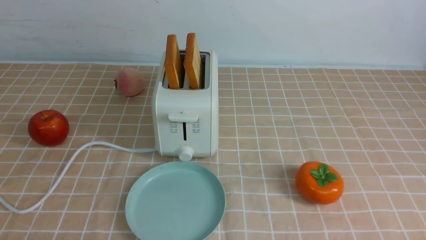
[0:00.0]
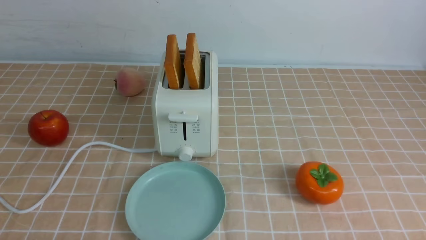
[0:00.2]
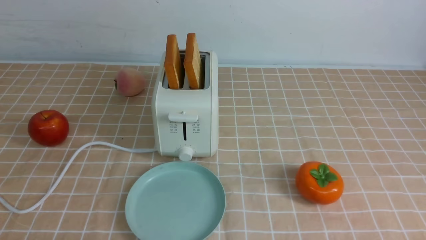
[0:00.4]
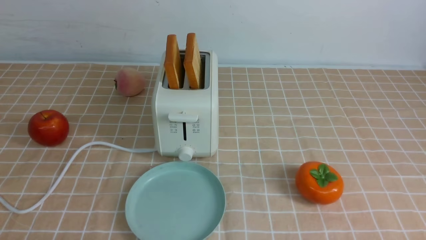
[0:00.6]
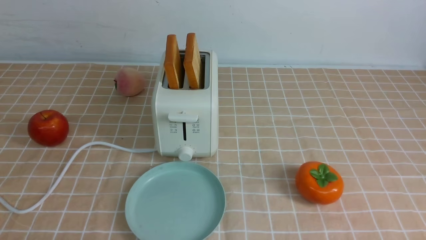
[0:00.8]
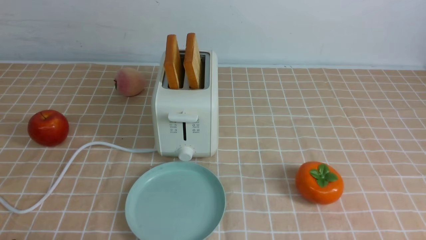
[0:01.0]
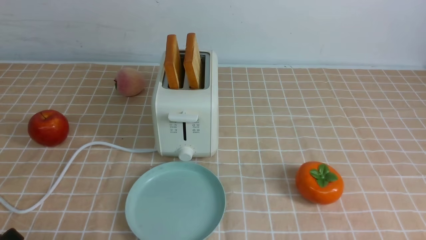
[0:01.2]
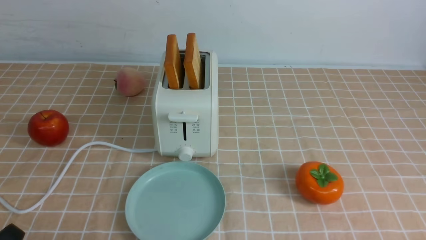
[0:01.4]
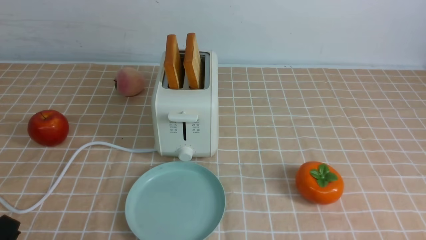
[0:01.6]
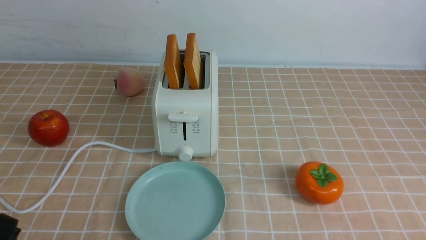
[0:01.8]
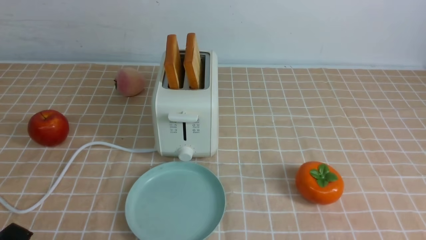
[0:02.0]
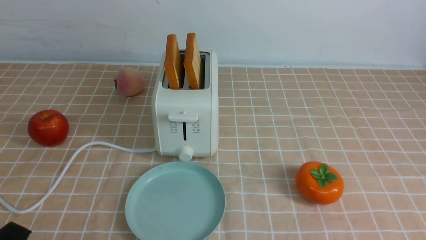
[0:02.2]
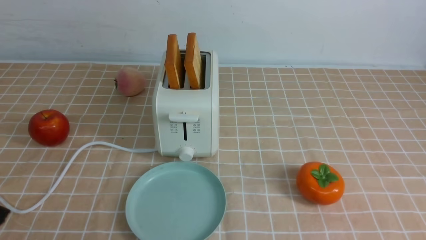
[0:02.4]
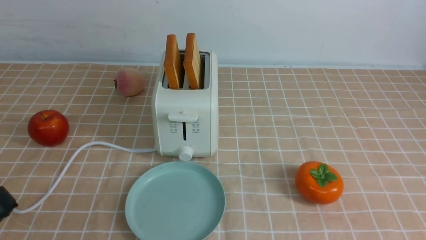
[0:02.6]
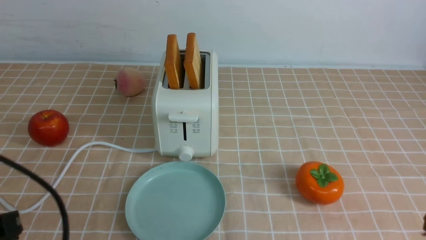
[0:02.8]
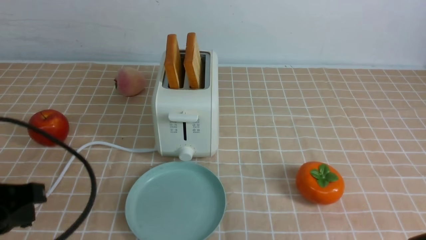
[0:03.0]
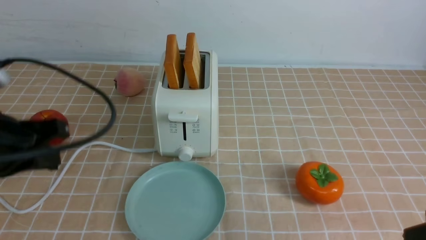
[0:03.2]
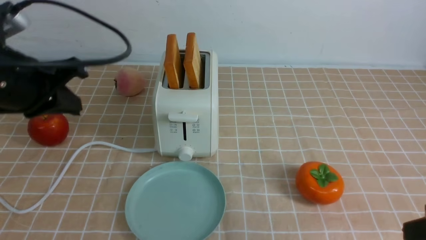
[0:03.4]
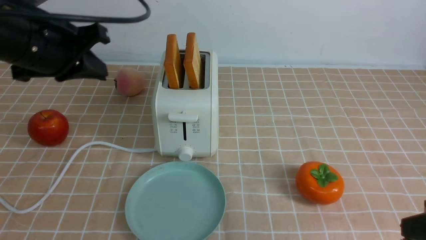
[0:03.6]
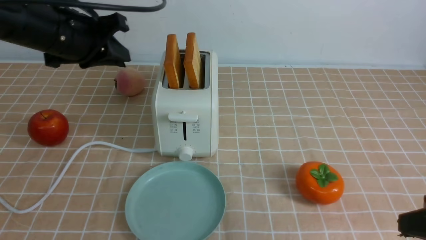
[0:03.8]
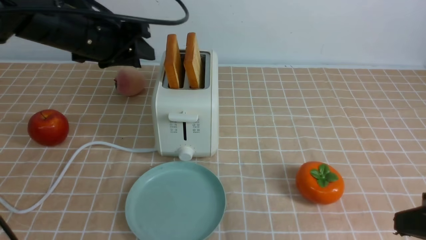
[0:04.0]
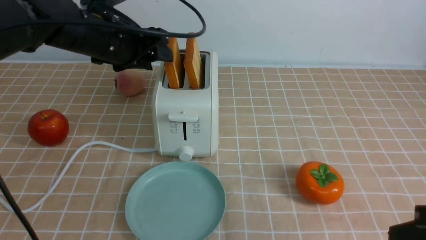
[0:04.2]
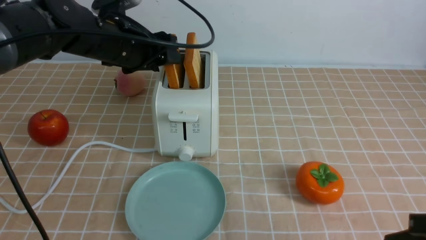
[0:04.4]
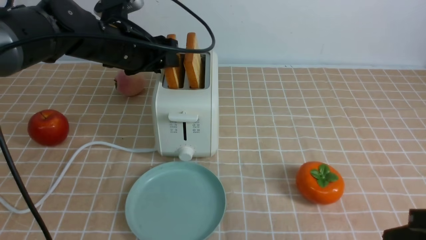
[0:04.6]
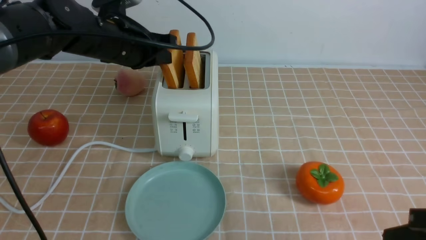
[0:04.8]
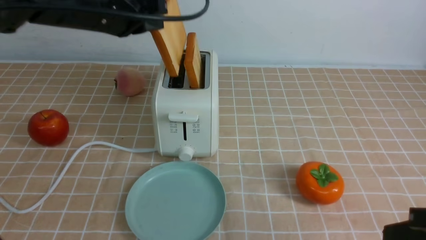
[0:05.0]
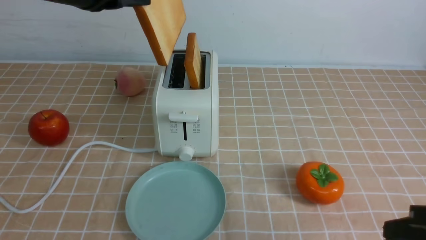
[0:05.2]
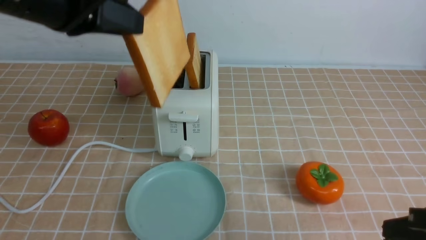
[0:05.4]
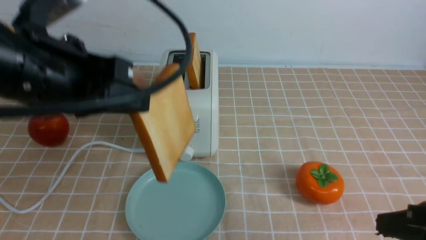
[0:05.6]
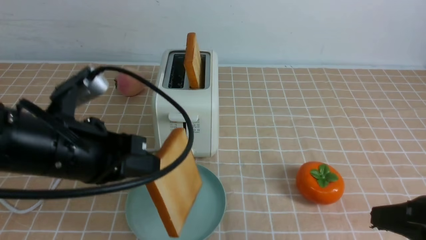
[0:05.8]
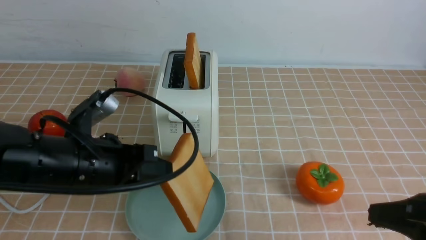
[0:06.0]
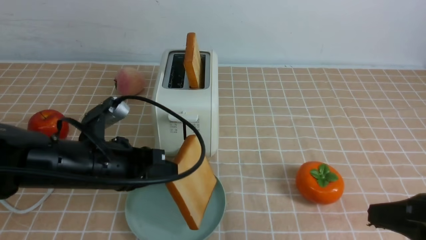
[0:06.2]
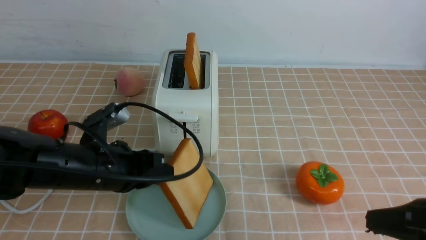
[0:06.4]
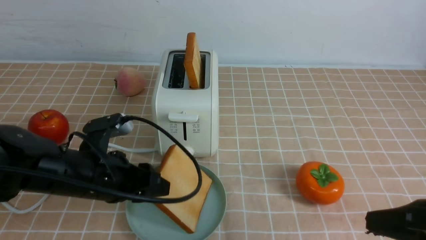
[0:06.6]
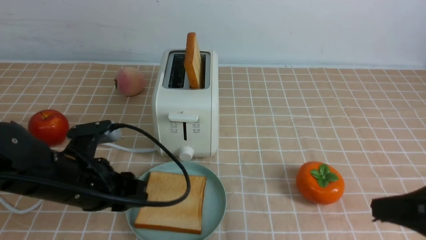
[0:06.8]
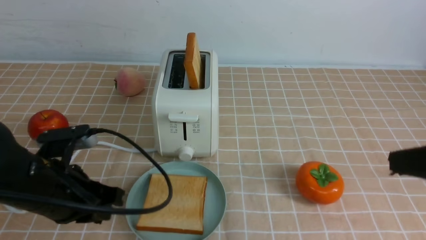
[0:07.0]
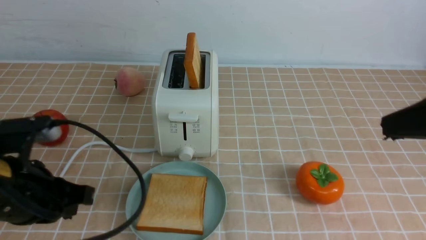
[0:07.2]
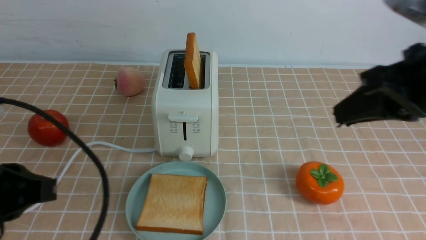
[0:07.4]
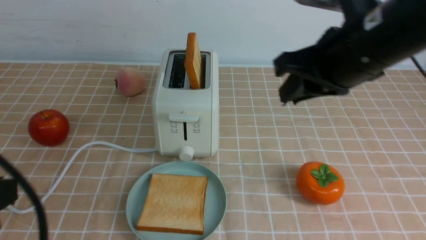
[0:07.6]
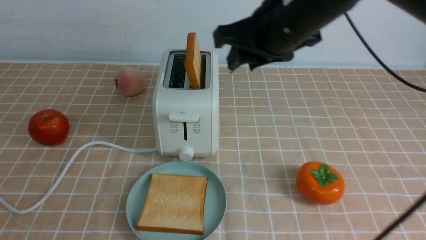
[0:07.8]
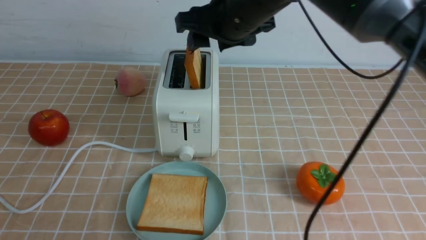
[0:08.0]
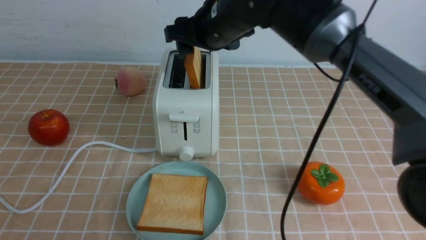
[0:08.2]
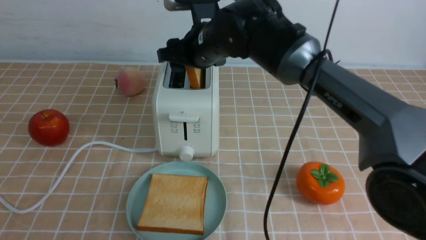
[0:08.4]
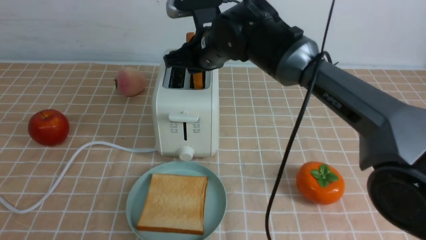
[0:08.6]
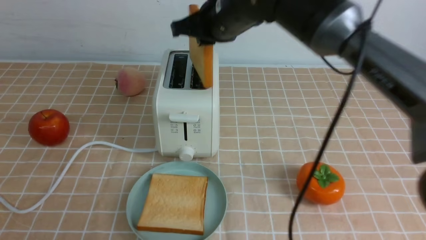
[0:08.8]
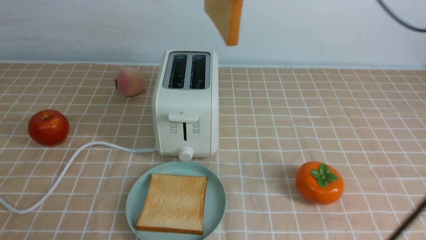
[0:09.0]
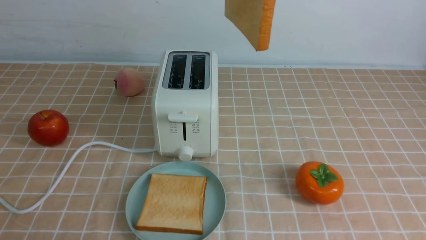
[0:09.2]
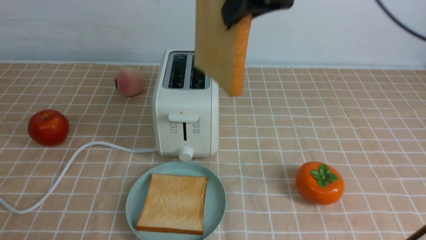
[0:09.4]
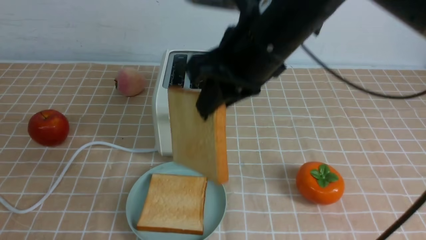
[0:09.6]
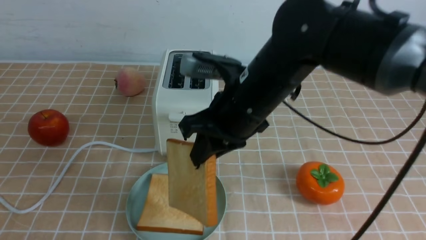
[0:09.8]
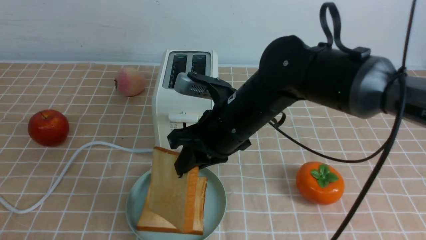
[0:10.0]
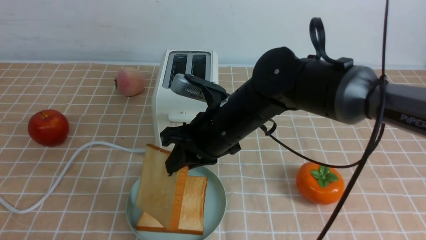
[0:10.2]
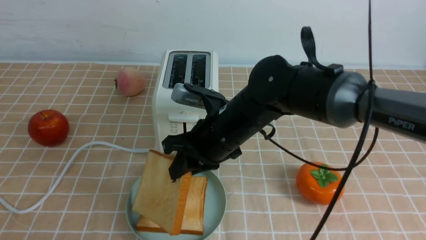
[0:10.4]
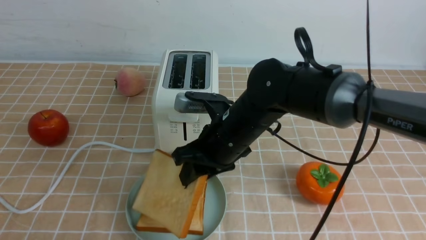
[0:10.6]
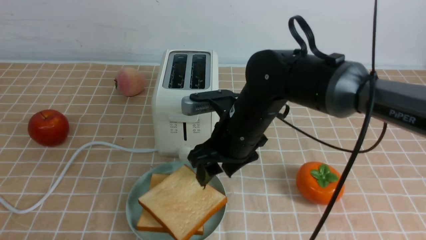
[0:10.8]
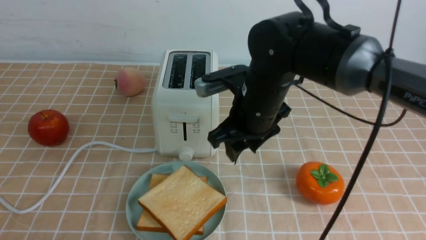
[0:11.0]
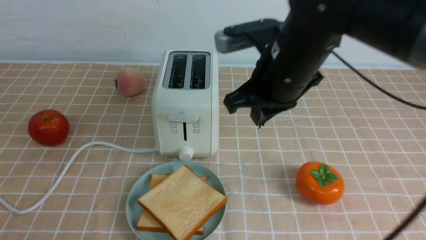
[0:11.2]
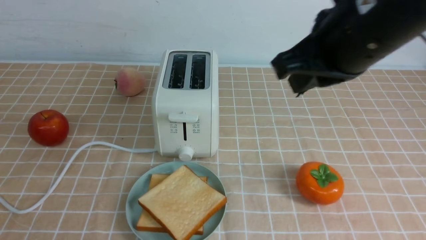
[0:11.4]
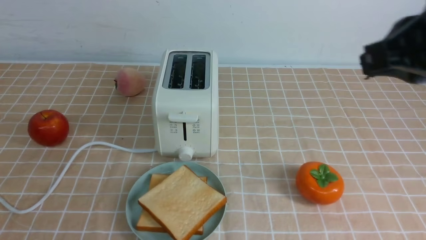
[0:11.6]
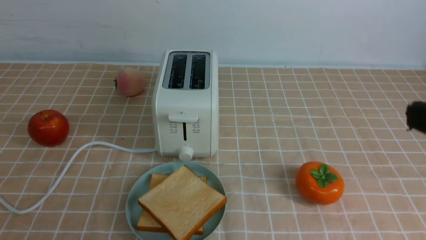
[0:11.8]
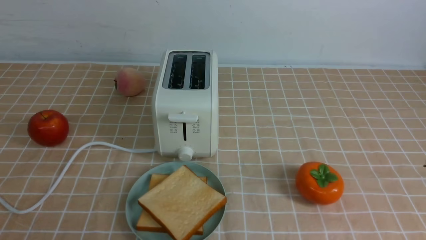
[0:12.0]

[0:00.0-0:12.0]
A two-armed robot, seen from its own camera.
Task of the whole recording: take toasted bread from bread machine on light coffee tablecloth place on plate.
Step, 0:00.0 to 0:04.8: use the left arm to take out a slice of bread.
Step, 0:05.0 to 0:06.8: use the left arm to put a slice of bread into the empty plate.
Step, 0:07.0 to 0:08.6: use the right arm to take out a slice of bread.
Step, 0:09.0 to 0:10.8: use the right arm to put a slice of bread into the plate.
0:01.6 to 0:03.0: The left gripper shifts about 15 cm upward and forward, and closes.
0:03.0 to 0:04.4: The left gripper is displaced forward by about 25 cm, and opens up.
0:04.4 to 0:06.0: The left gripper travels backward by roughly 15 cm, and closes up.
0:06.0 to 0:07.6: The left gripper goes approximately 20 cm backward, upward and to the left, and opens, then closes once more. Meanwhile the right gripper shifts some 25 cm forward, upward and to the left.
0:07.6 to 0:09.0: The right gripper moves upward, to the left and forward, about 10 cm, and opens, then closes again, while the left gripper shifts some 5 cm backward.
0:09.0 to 0:10.4: The right gripper is displaced downward by about 25 cm.
0:10.4 to 0:12.0: The right gripper moves to the right and backward, approximately 35 cm, and closes up.

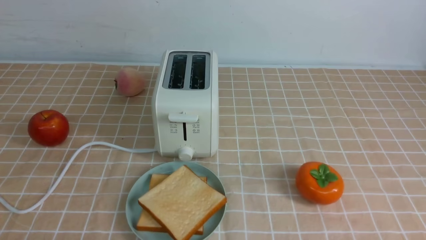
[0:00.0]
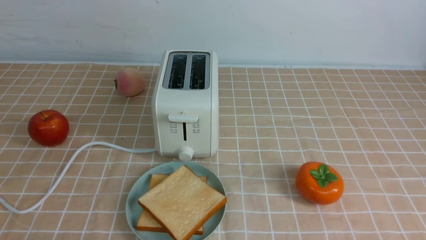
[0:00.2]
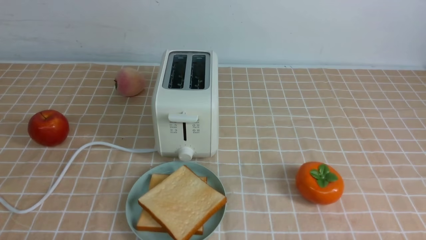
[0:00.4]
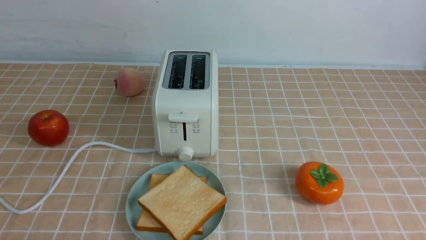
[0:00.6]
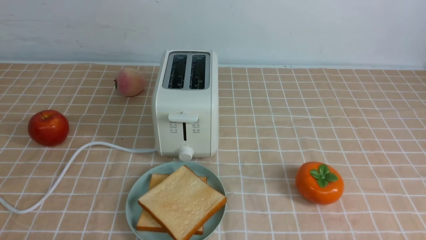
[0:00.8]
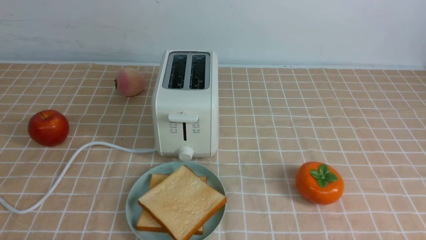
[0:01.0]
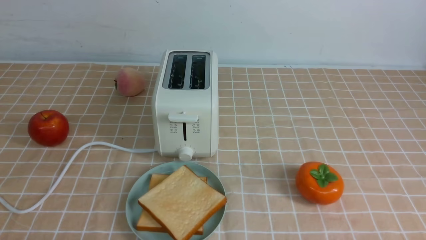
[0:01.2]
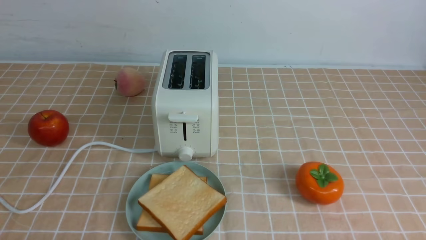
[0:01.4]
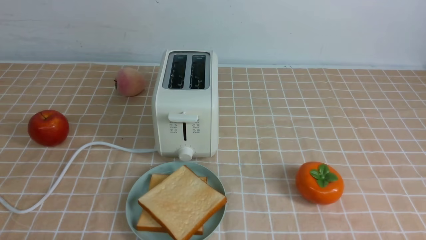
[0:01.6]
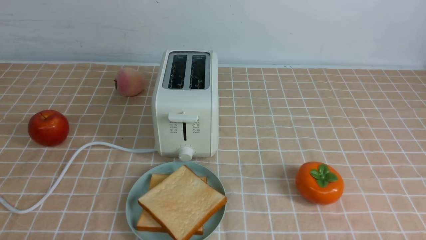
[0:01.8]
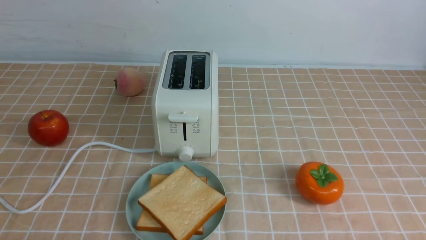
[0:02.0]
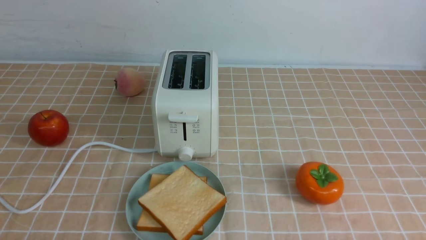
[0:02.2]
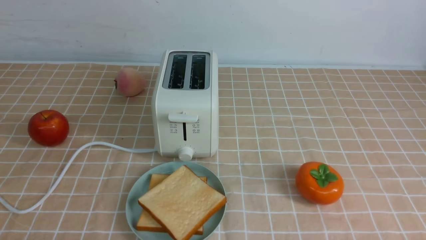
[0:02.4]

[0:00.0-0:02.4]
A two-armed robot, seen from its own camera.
Task of the whole recording: take toasted bread from bread machine on light coffee tablecloth place on plate.
0:00.0 to 0:02.4: Both grippers stay put.
